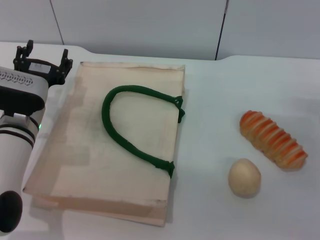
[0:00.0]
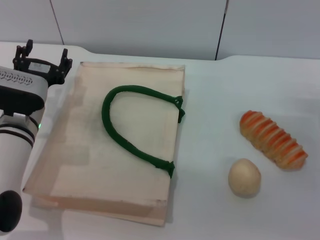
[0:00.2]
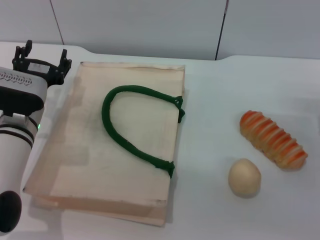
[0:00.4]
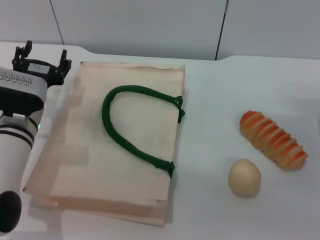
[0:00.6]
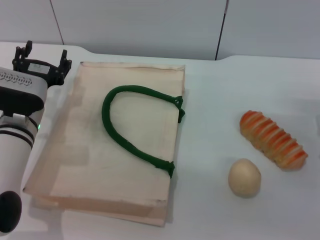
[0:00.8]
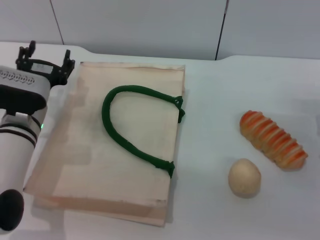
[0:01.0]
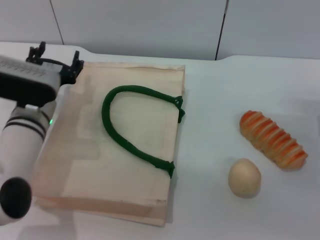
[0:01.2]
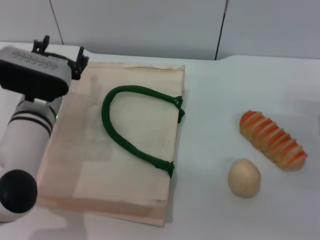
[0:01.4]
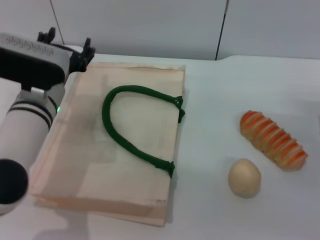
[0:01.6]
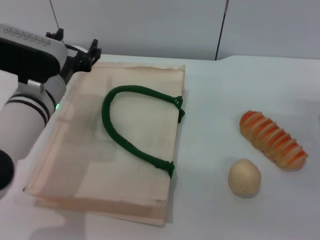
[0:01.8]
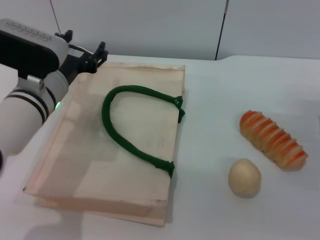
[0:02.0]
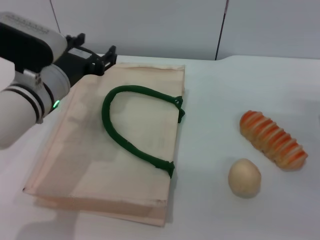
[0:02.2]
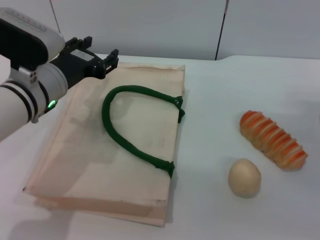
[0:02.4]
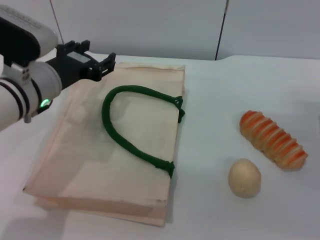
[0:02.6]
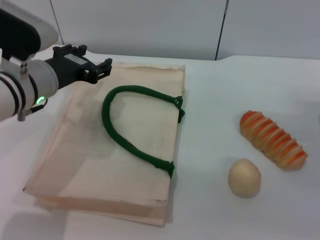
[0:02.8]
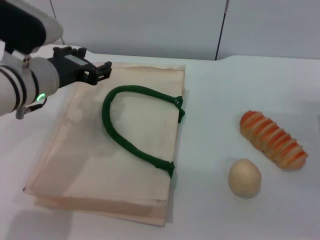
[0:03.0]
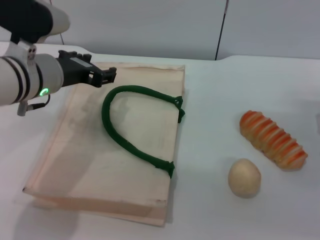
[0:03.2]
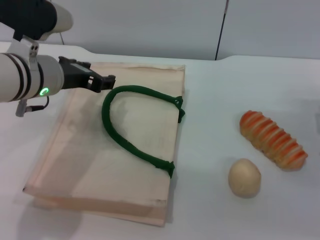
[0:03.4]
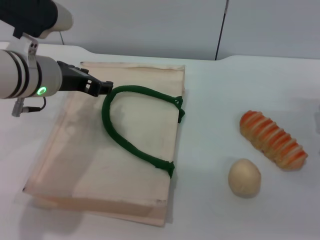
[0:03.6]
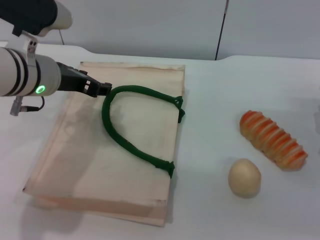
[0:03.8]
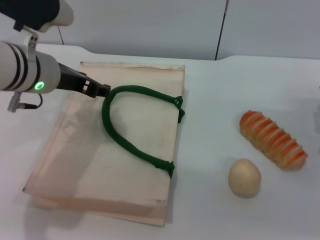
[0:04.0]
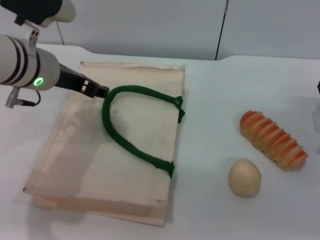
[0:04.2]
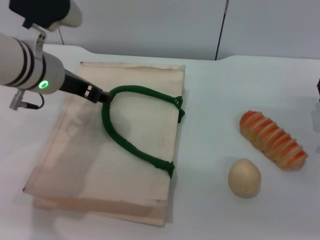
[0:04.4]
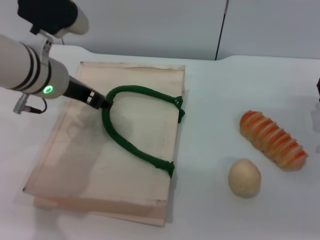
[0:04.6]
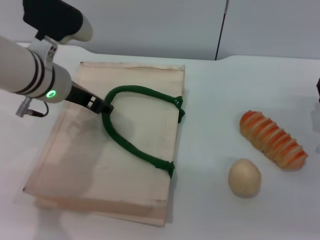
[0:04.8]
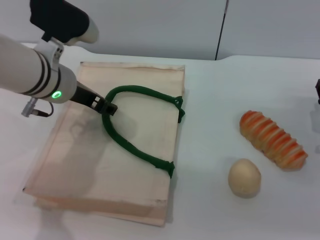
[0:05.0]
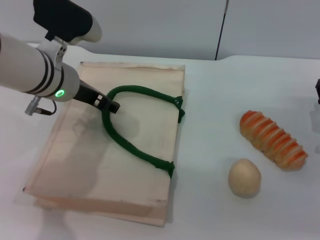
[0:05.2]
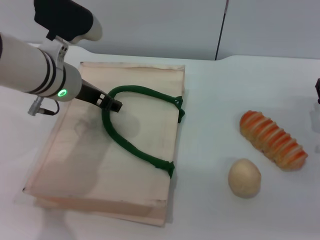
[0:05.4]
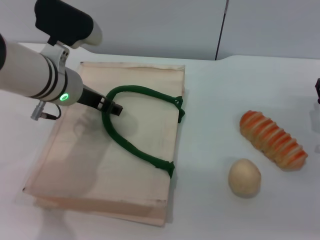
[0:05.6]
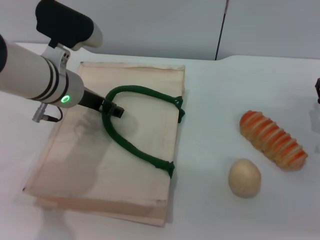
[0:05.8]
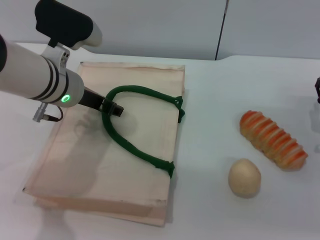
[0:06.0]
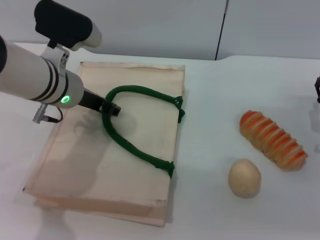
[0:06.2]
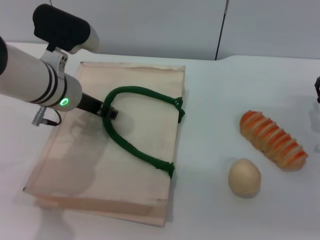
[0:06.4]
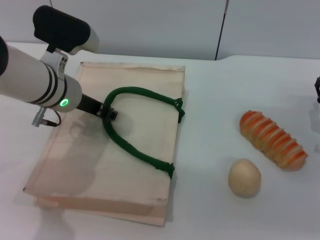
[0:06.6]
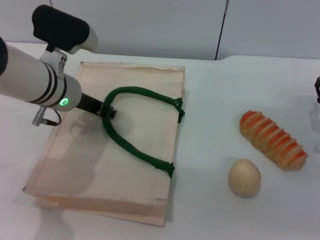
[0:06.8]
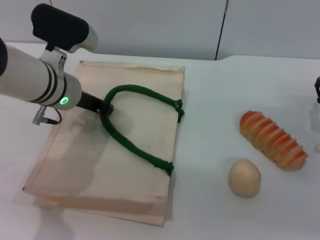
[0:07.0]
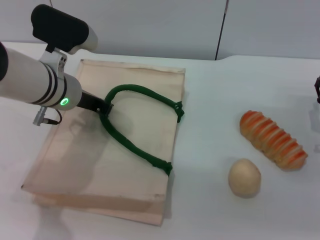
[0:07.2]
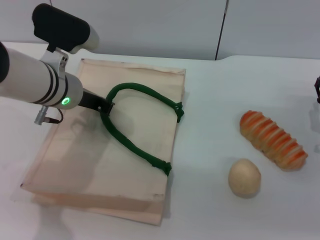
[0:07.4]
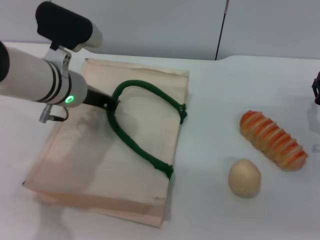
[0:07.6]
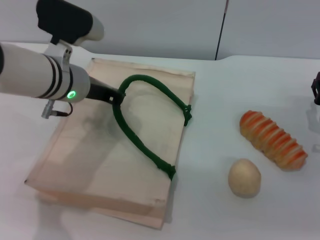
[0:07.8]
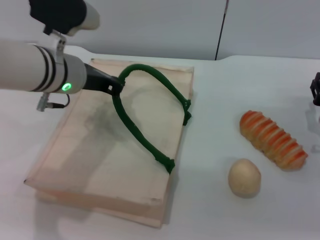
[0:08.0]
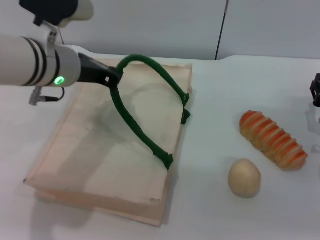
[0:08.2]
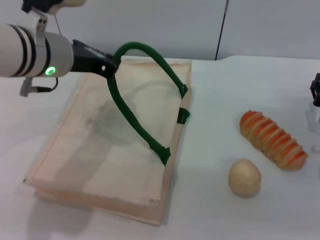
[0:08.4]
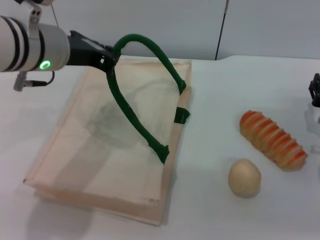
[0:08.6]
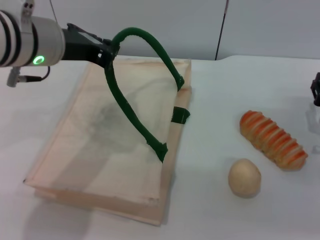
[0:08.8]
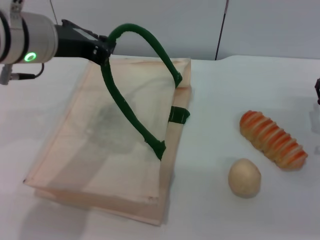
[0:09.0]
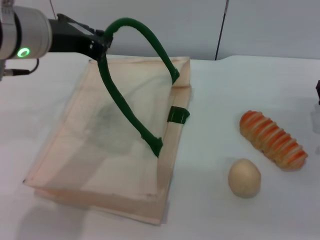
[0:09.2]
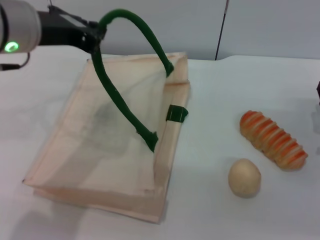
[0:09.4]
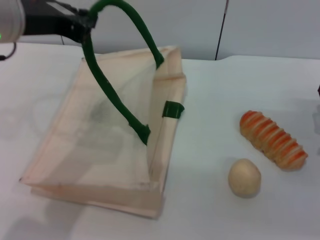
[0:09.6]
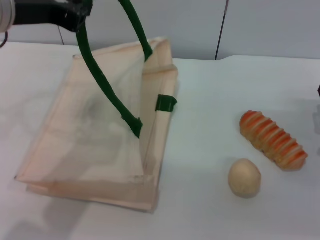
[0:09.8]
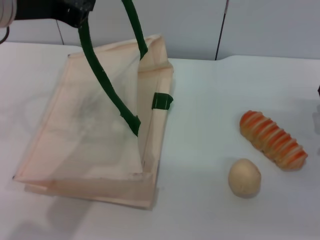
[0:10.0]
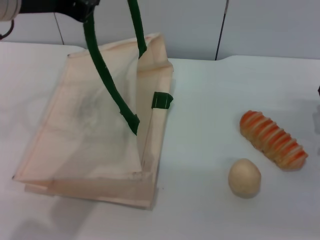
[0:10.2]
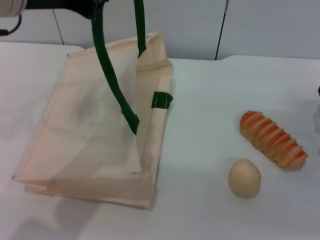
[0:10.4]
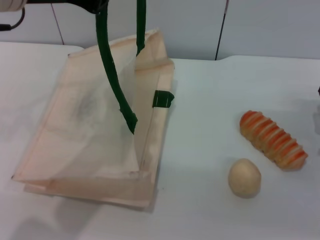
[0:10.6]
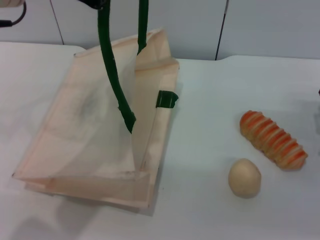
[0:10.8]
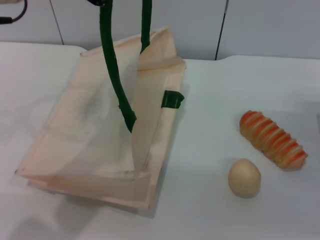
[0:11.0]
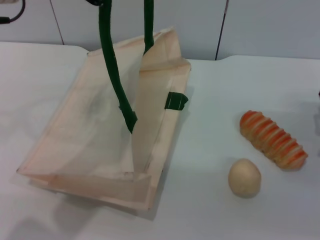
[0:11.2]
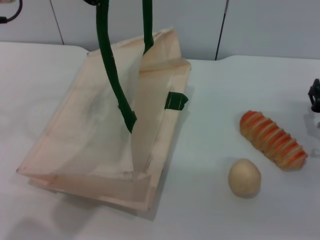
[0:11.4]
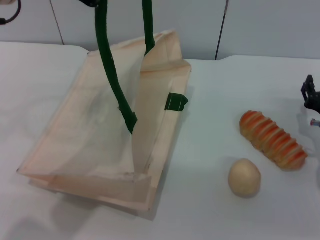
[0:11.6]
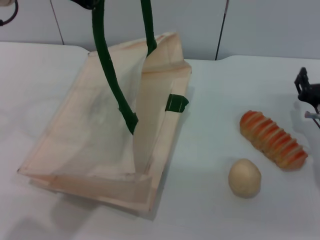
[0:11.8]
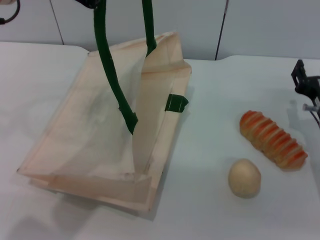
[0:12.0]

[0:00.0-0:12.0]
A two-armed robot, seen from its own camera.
Task of the whole recording: pick up the bread and egg yolk pastry from the table and place it in the white handbag.
Step, 0:00.0 to 0:11.6: Lift the woven bag with the left gripper to open it.
0:00.0 to 0:01.6: The left gripper moves roughly 5 cm.
0:01.6 to 0:03.0: The left gripper shifts roughly 5 cm upward.
0:04.4 to 0:06.0: The grippers move only a little.
0:06.0 to 0:07.6: The left gripper closes.
0:07.6 to 0:09.0: The left gripper heads upward, covering some 10 cm.
0:09.0 to 0:10.4: The left gripper shifts approximately 5 cm upward.
0:10.4 to 0:12.0: There are only small adjustments of the grippers.

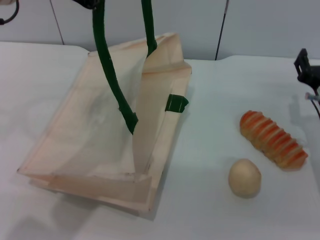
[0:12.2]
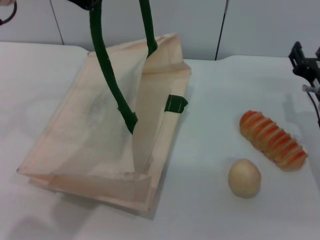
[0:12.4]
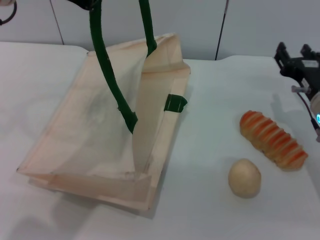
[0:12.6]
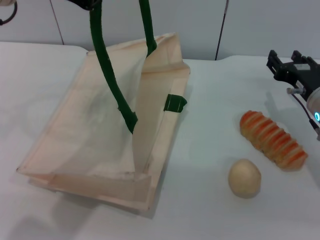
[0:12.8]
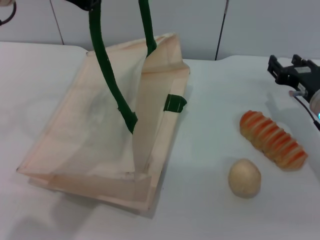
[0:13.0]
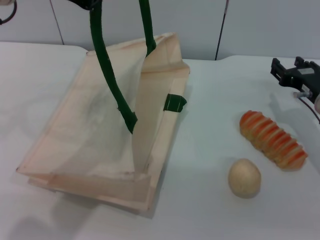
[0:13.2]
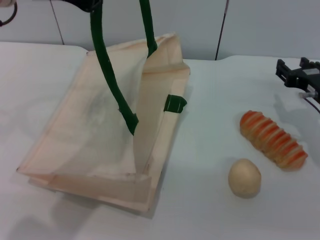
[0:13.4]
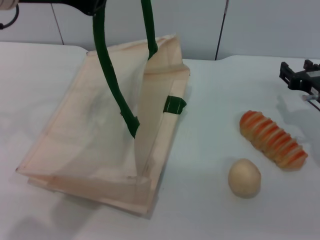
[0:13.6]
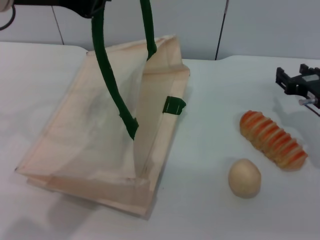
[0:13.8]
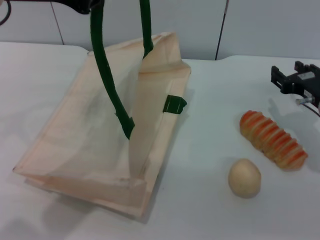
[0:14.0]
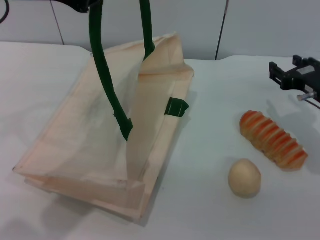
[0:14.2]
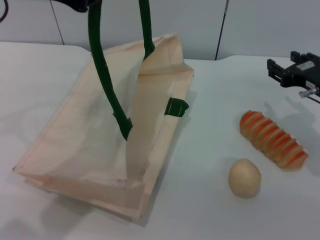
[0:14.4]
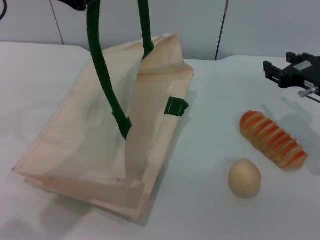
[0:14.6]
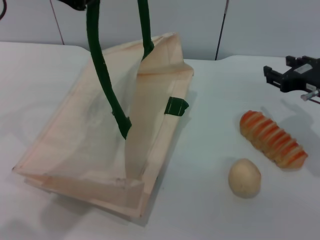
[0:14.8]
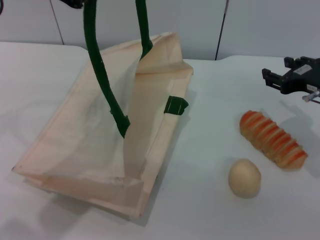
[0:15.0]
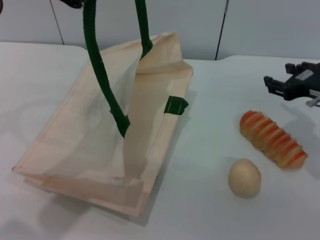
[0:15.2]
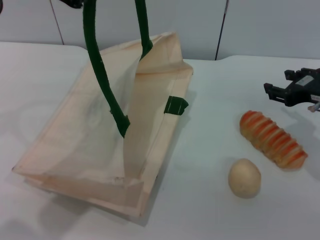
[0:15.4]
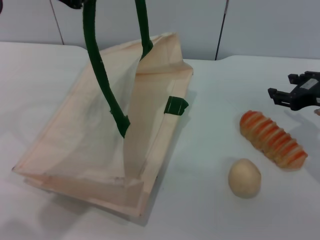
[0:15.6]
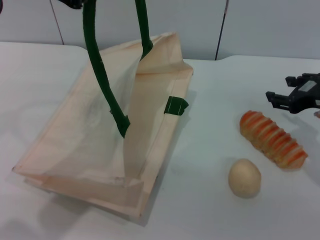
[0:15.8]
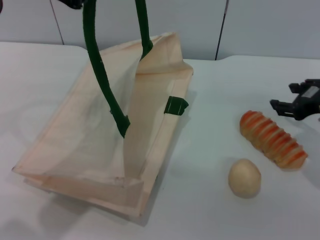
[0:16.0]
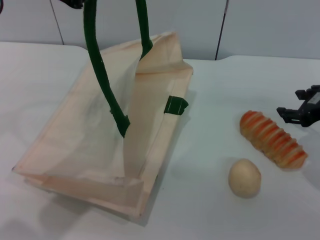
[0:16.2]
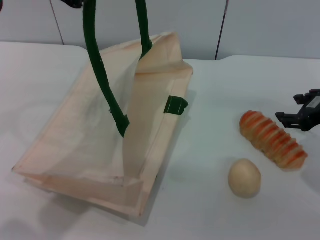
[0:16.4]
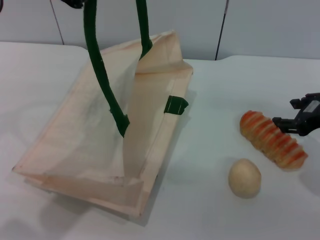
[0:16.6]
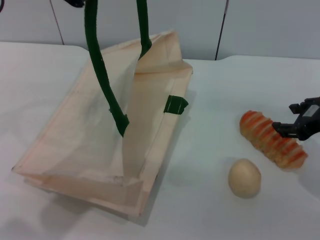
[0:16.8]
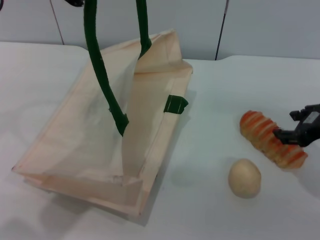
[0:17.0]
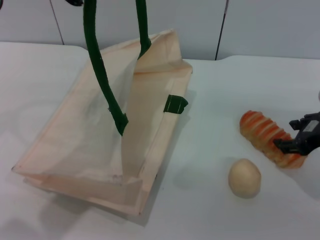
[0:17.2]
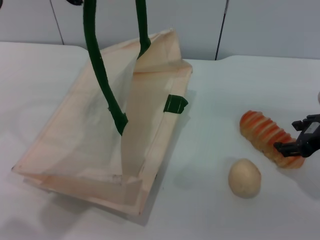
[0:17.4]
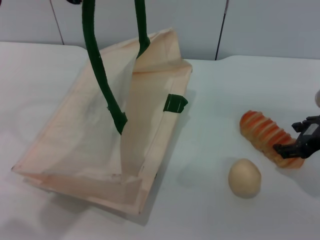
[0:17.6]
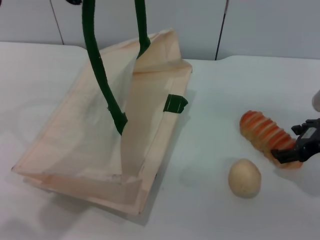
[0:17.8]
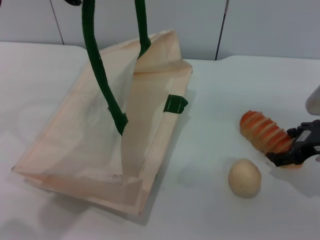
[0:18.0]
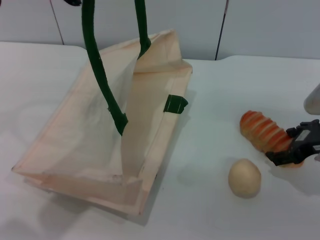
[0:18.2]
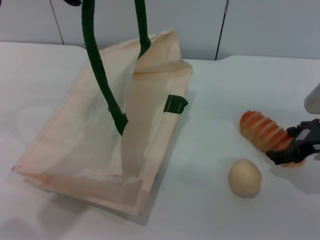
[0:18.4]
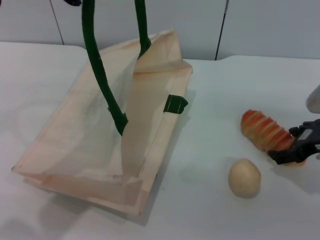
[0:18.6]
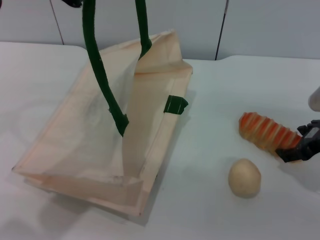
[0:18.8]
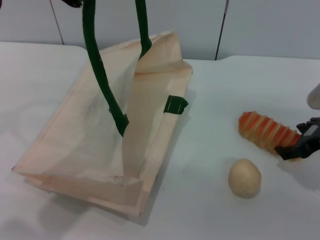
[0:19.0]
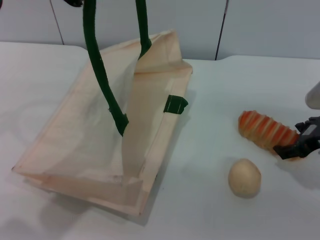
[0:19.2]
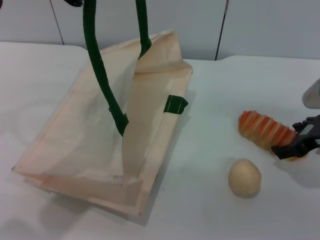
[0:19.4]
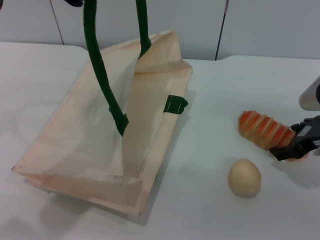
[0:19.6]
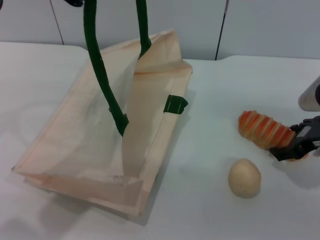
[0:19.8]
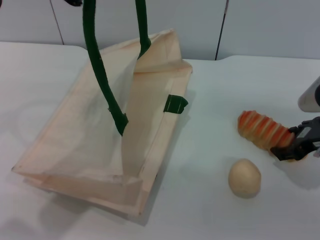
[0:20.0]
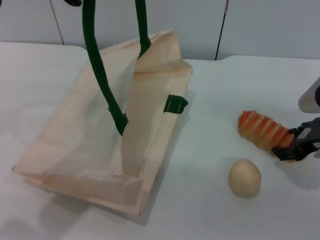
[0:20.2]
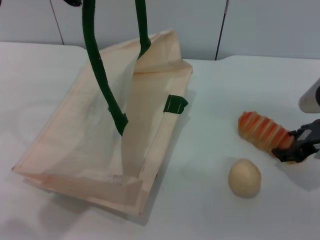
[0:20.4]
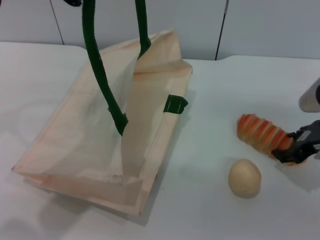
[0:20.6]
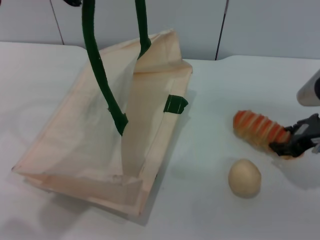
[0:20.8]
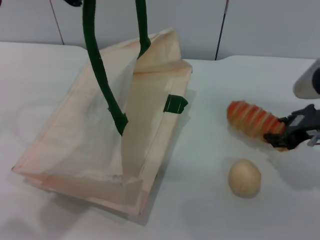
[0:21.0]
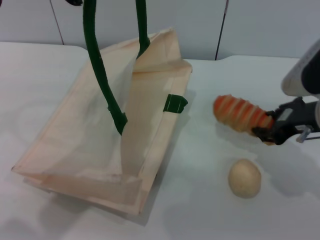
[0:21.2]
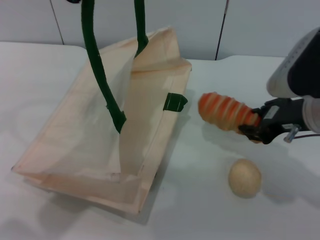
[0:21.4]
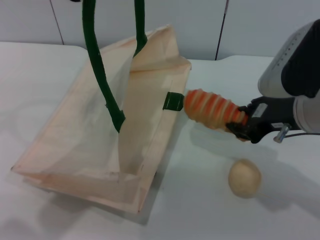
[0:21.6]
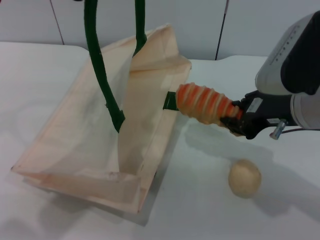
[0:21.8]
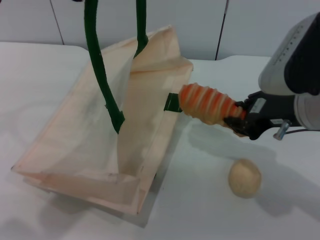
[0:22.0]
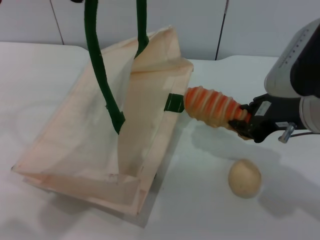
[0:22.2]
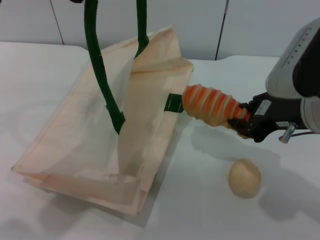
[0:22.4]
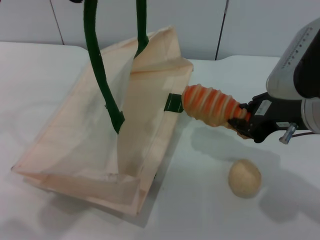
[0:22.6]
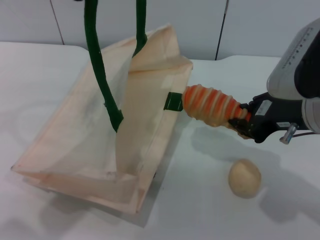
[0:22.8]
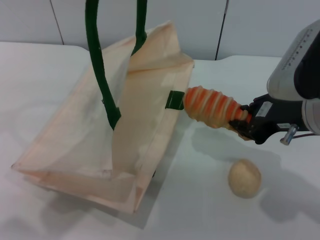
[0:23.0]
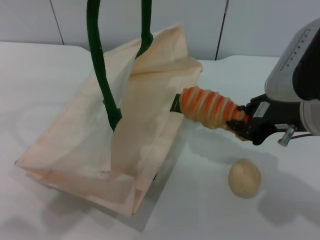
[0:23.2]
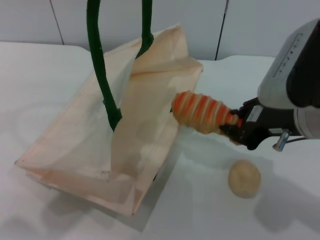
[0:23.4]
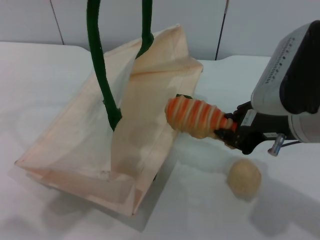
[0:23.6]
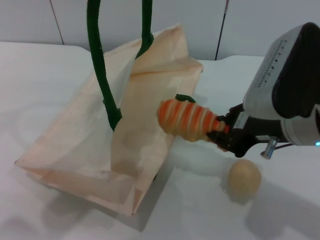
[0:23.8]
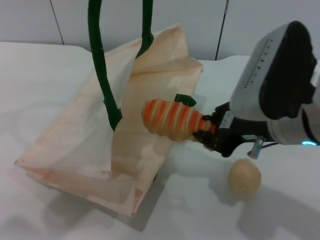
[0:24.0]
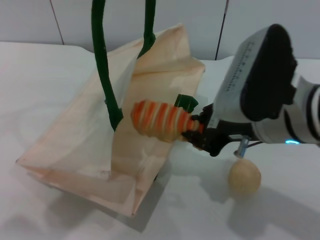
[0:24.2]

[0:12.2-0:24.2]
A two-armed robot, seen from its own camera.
Task of the whole recording: pick up the bread and egg yolk pastry from the table and place it in the white handbag.
Step, 0:12.2 to 0:20.8: Pick up the bread with the right gripper.
0:13.8 to 0:15.2: The right gripper goes roughly 5 cm upward.
0:15.2 to 0:16.6: The grippers make only small movements.
0:16.6 to 0:18.2: The right gripper opens.
0:18.2 to 0:19.8: Both grippers stay put.
0:19.8 to 0:21.2: The right gripper changes place by roughly 5 cm, and closes.
0:21.2 to 0:22.6: The right gripper shifts by roughly 5 cm.
0:22.6 to 0:24.2: The right gripper travels to the left by some 5 cm.
